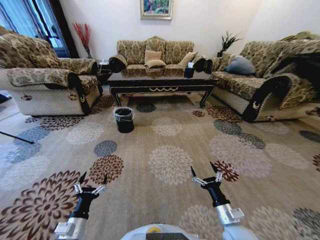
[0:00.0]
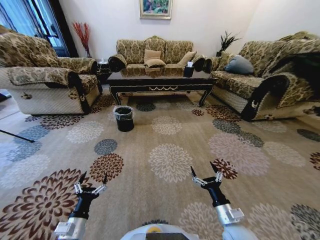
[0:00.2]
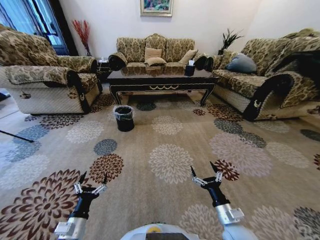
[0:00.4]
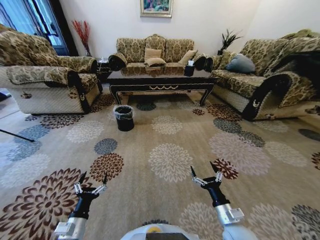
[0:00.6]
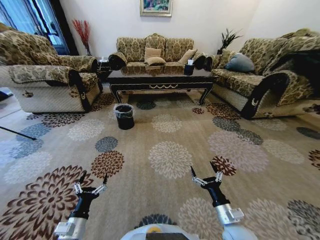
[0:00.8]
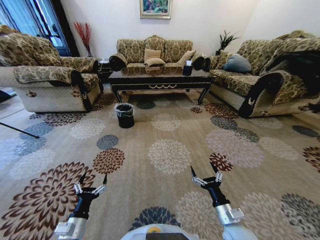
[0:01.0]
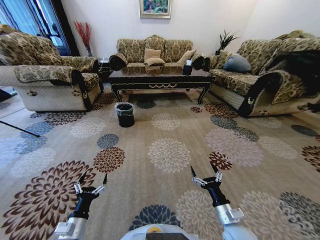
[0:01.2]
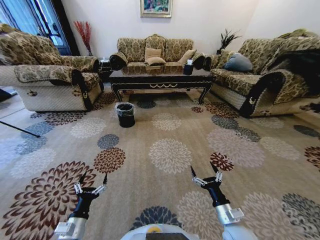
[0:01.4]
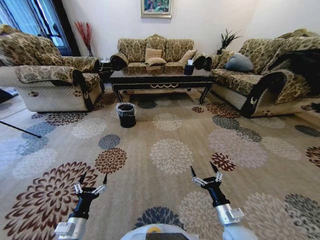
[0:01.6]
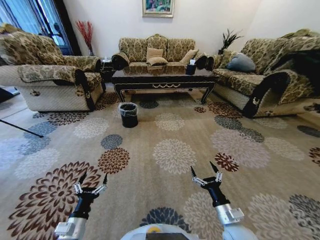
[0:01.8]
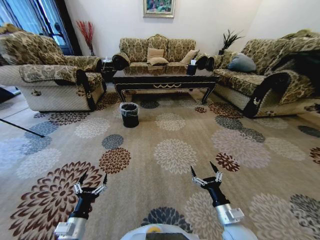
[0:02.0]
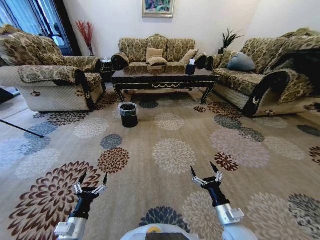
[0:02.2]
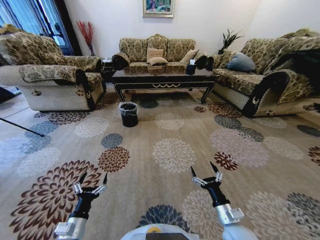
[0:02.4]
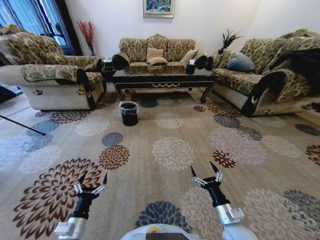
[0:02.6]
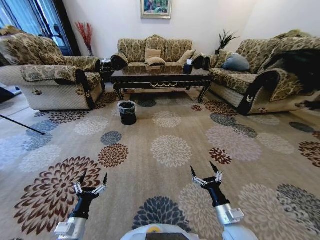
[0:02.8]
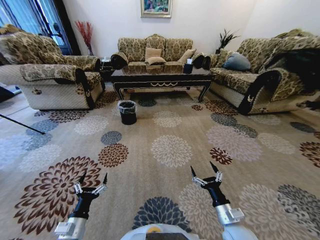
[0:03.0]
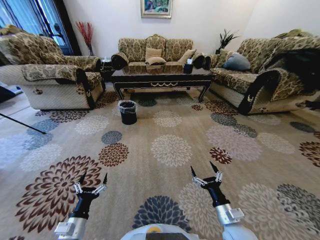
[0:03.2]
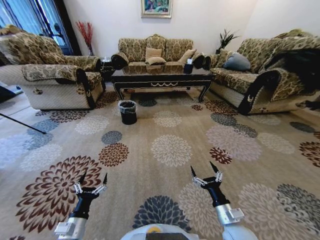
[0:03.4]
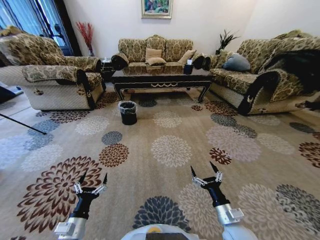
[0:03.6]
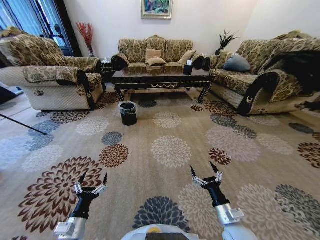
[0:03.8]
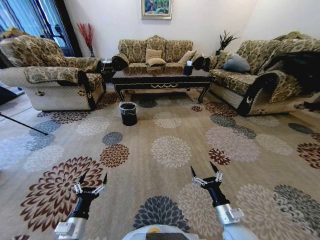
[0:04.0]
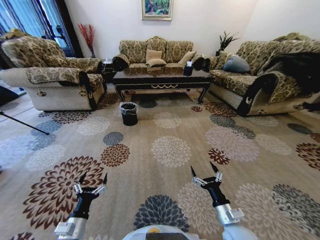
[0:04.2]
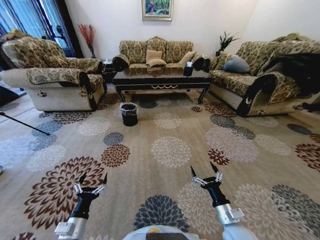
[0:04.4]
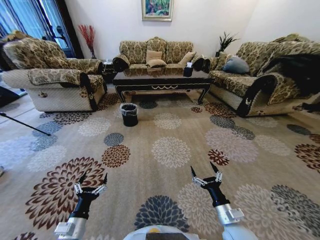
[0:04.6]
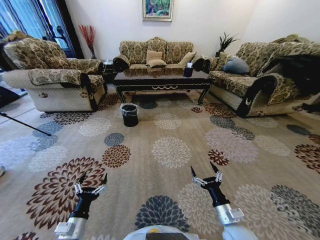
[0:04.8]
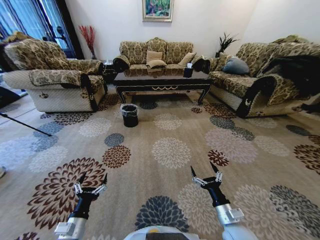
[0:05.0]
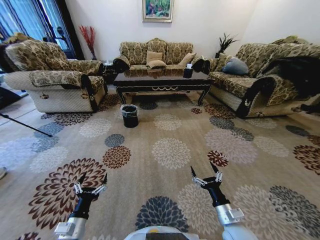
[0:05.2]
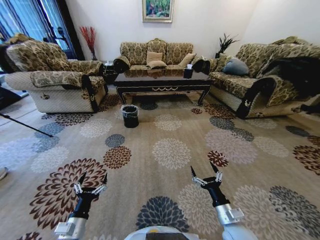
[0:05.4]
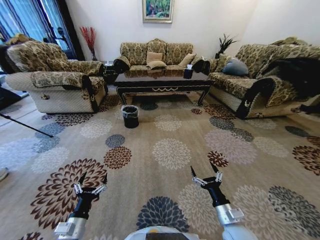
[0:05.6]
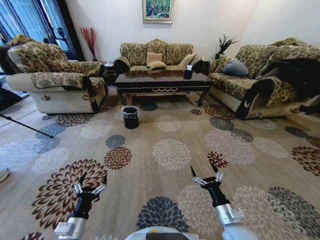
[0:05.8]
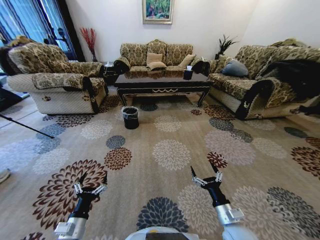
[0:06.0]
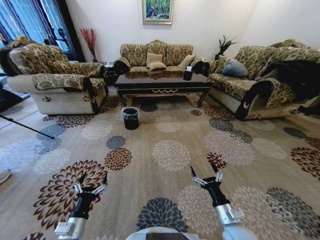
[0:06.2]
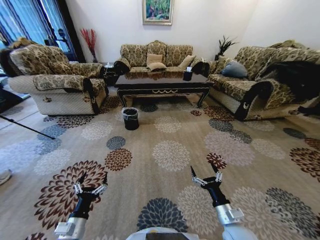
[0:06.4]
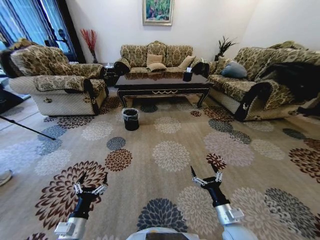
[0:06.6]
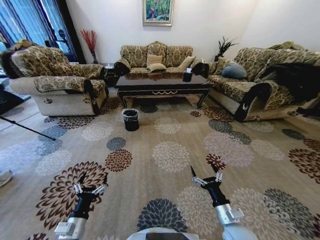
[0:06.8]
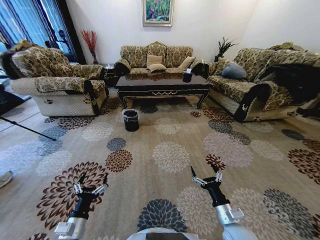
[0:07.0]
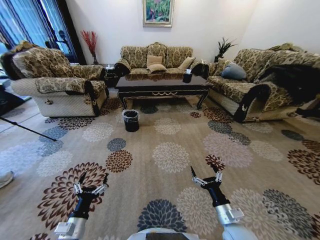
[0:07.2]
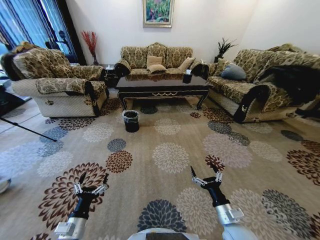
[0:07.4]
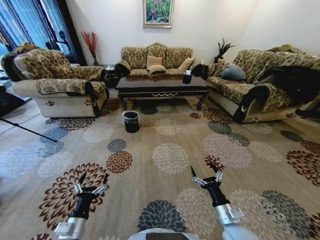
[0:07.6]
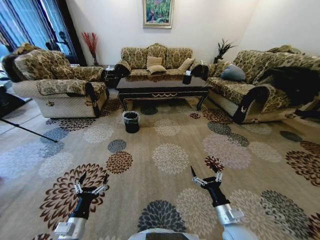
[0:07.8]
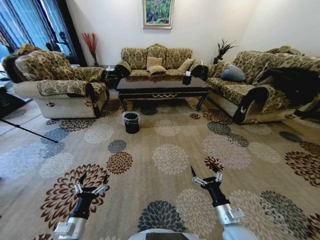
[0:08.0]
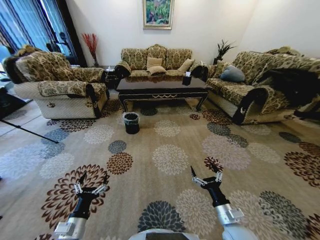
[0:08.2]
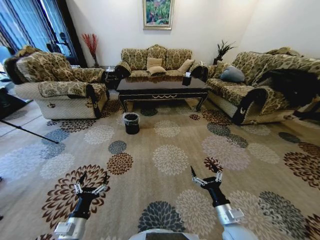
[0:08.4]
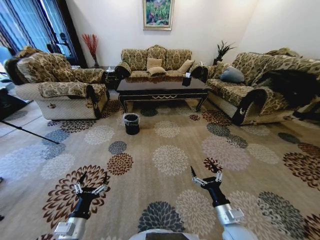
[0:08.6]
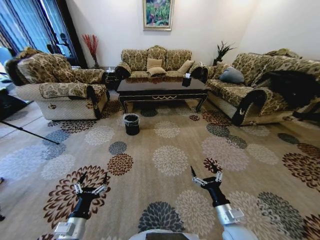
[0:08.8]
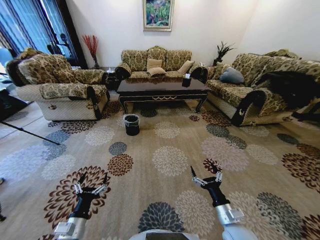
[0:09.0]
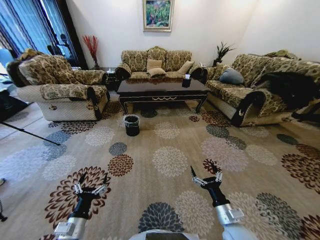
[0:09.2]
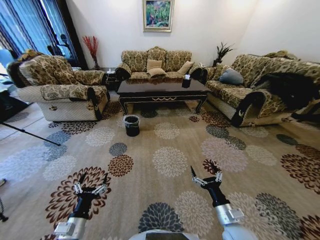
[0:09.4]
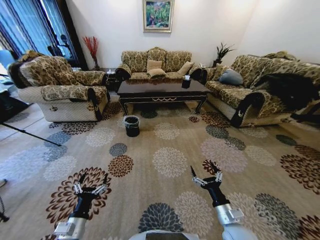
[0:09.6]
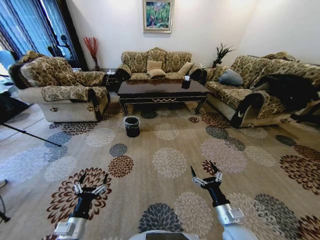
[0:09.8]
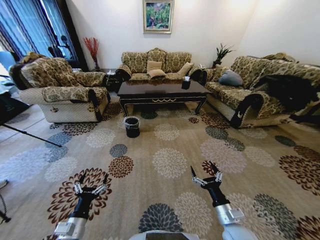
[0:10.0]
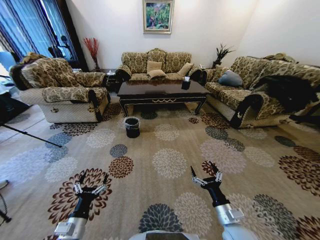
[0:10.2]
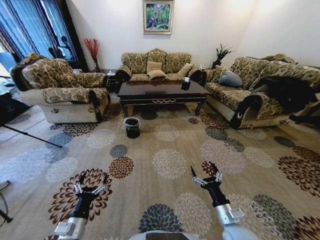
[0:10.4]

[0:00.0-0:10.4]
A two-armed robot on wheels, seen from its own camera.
Task of the whole recording: Move to the front of the table and pick up the trash from the floor, then place it into the trash bin.
0:01.4 to 0:03.0: Both grippers stay put.

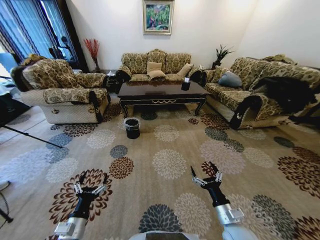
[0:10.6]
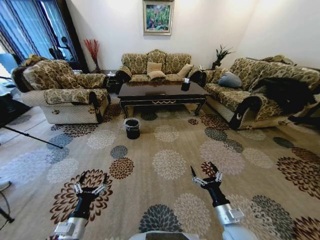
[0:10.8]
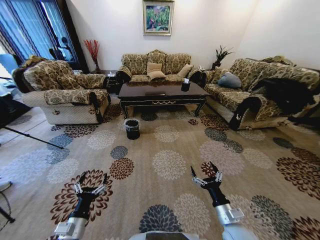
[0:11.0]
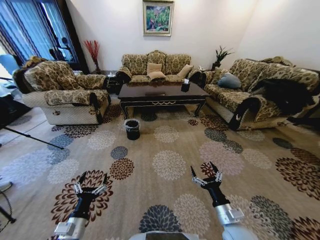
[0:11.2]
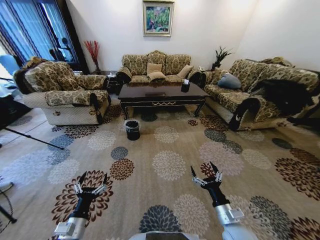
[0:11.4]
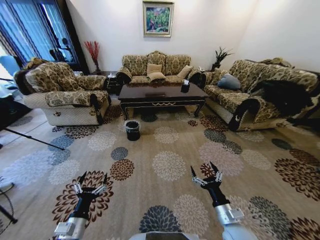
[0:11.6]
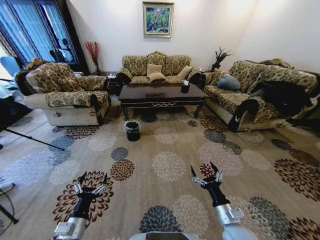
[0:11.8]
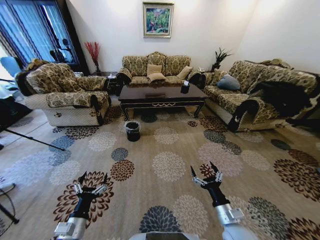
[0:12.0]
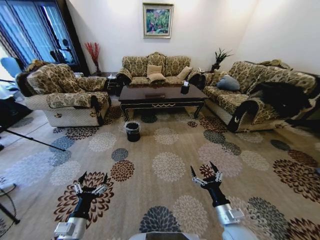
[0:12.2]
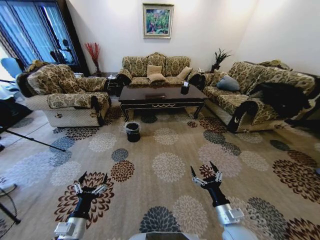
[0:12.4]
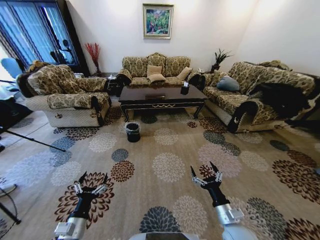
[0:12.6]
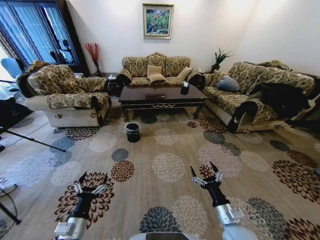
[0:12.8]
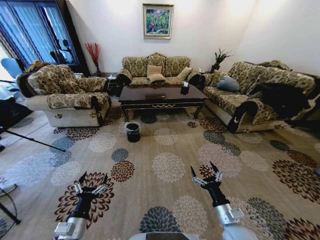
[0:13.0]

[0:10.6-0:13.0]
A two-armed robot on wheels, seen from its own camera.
Task of the whole recording: Move to the front of the table and pick up the trash from the floor, then place it into the trash bin.
0:11.8 to 0:13.0: Neither gripper changes place.

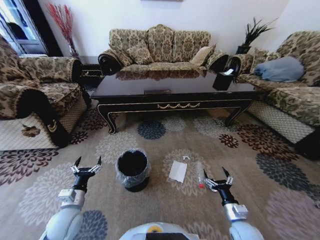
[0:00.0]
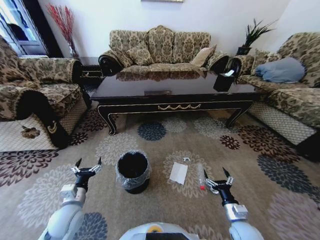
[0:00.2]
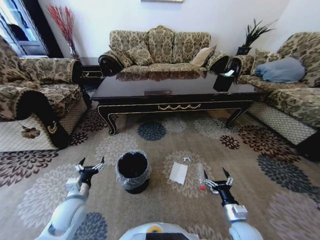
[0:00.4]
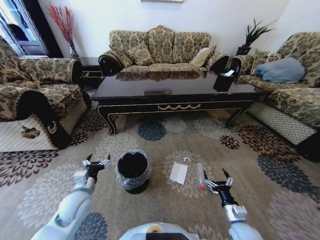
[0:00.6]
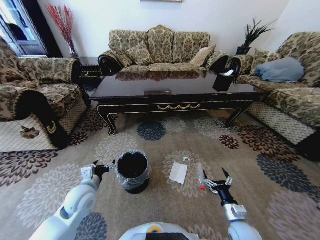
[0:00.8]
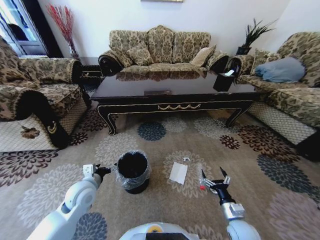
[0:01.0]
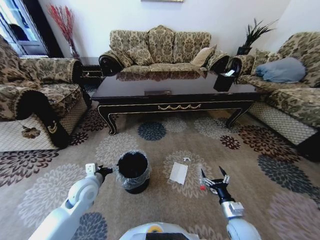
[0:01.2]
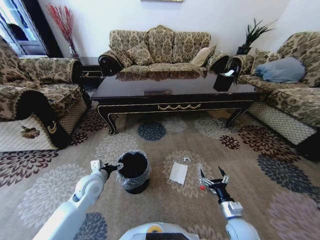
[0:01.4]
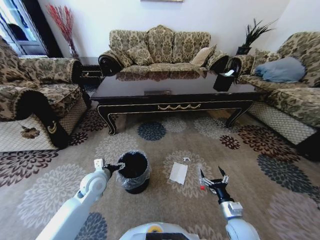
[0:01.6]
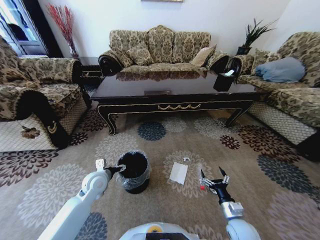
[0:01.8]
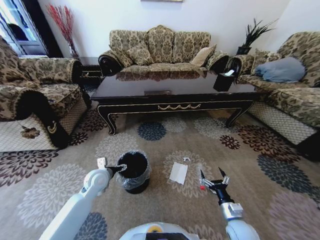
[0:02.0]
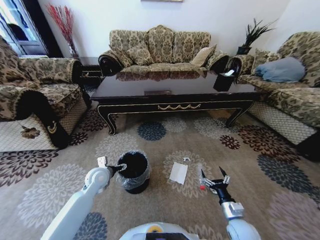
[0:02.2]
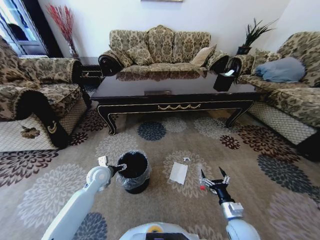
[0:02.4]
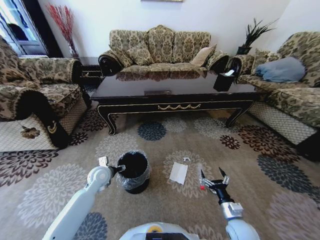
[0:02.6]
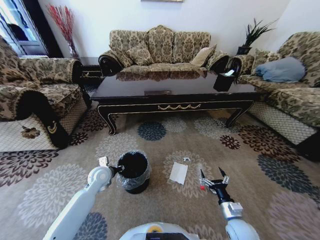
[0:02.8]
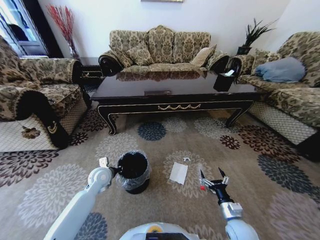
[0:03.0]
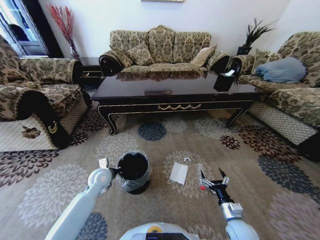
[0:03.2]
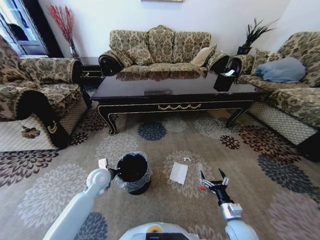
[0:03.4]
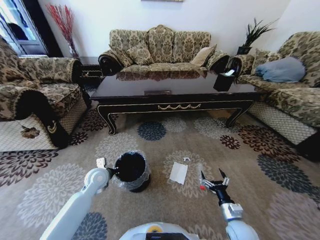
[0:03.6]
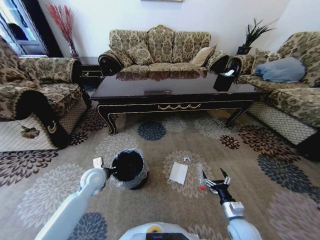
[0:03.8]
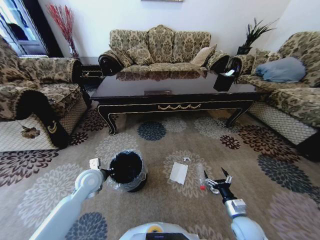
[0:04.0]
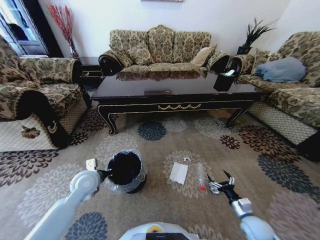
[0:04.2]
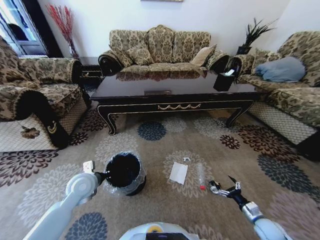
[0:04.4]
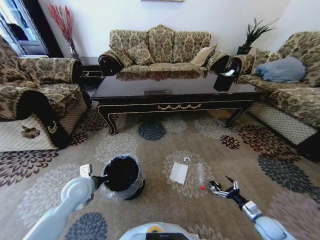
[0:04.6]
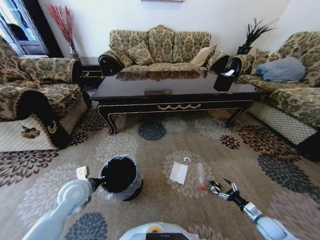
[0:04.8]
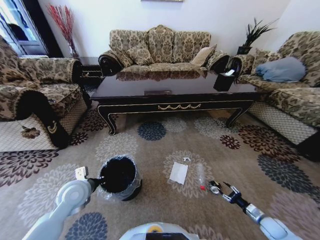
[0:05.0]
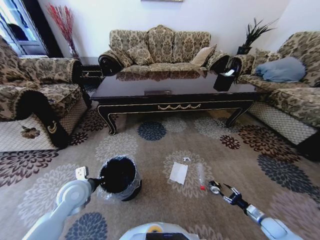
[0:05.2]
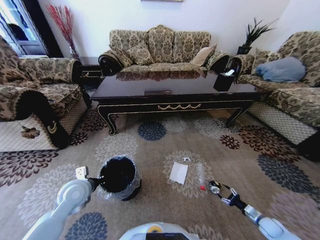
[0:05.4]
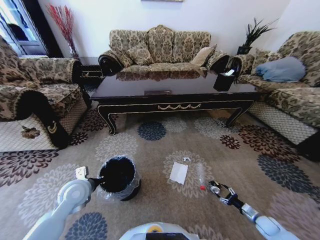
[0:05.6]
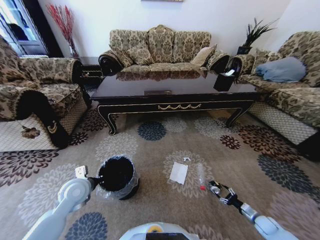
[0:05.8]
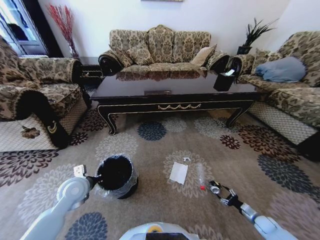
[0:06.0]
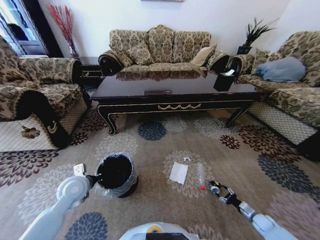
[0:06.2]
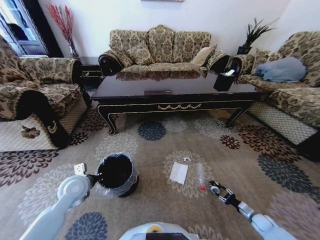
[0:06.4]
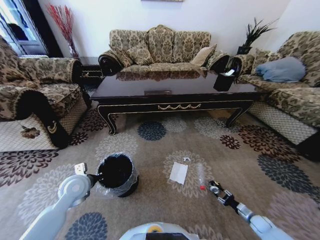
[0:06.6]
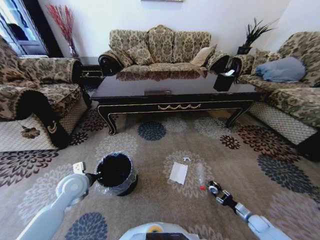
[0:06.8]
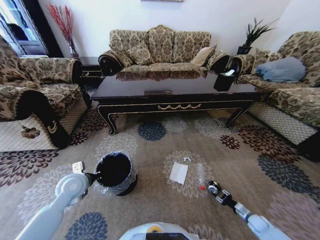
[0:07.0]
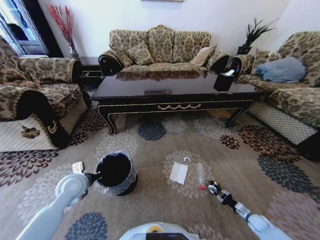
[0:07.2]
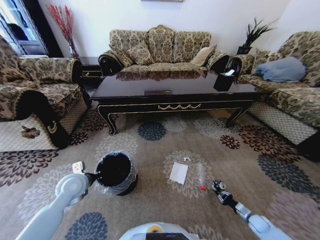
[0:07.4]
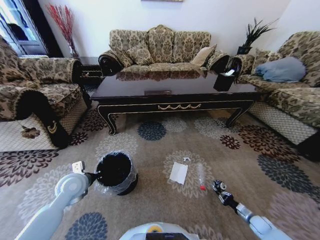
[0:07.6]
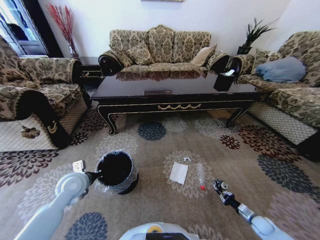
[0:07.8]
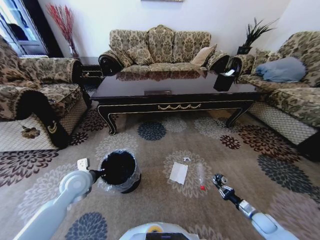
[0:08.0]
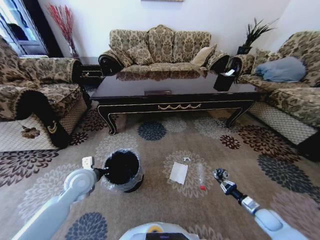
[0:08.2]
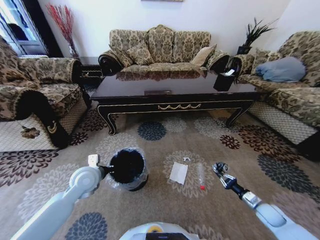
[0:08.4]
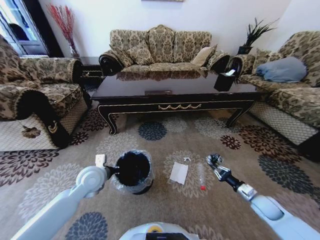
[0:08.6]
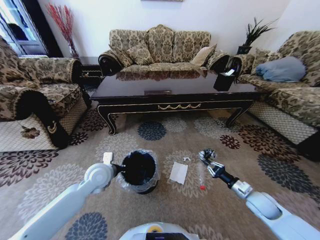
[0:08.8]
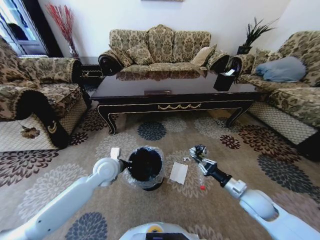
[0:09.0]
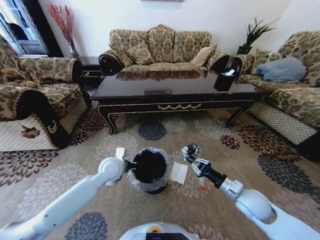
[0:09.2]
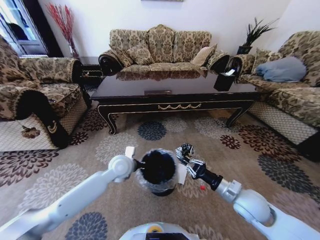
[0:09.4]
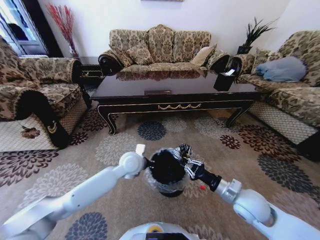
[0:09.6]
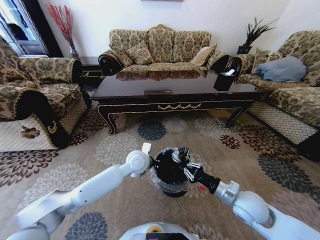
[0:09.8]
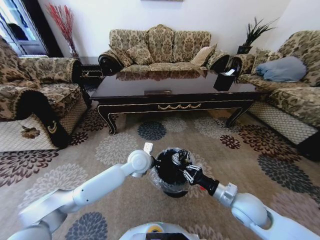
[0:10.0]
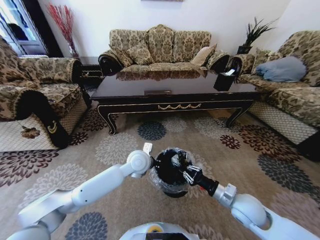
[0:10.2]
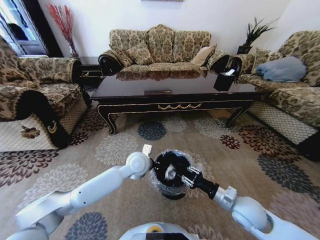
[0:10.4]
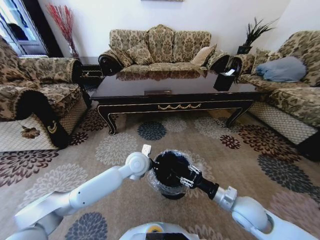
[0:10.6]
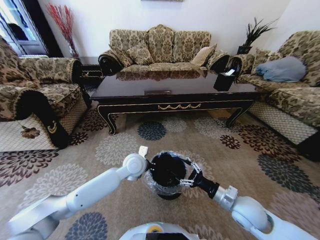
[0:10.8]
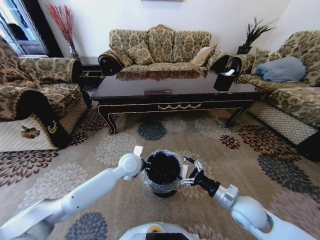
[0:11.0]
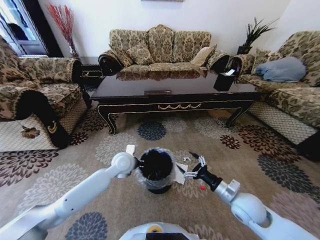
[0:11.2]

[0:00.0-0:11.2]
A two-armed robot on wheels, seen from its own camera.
Task of the whole recording: Move to the front of the table and pick up the trash from the floor, then place it into the trash bin.
0:00.0 to 0:01.6: The left gripper is displaced forward and to the right by some 15 cm.
0:01.6 to 0:03.2: The left gripper closes.
0:03.2 to 0:04.8: The left gripper shifts roughly 10 cm backward and upward. The right gripper heads to the right, covering roughly 20 cm.
0:04.8 to 0:06.4: The right gripper travels downward by about 5 cm.
0:06.4 to 0:08.0: The right gripper closes up.
0:08.0 to 0:09.6: The left gripper travels to the right by some 20 cm, while the right gripper moves upward and to the left, roughly 35 cm.
0:09.6 to 0:11.2: The right gripper opens.
